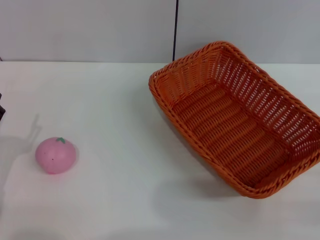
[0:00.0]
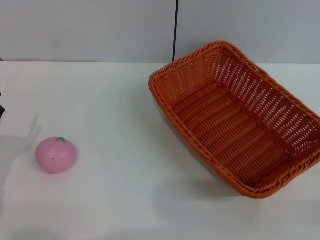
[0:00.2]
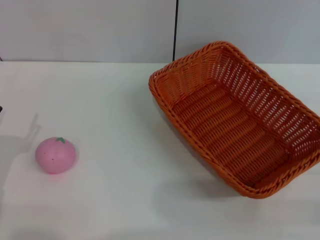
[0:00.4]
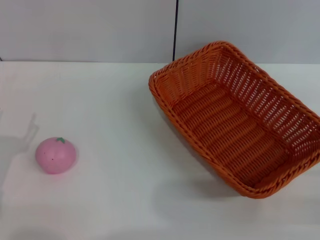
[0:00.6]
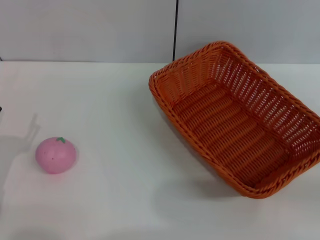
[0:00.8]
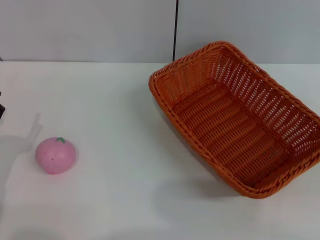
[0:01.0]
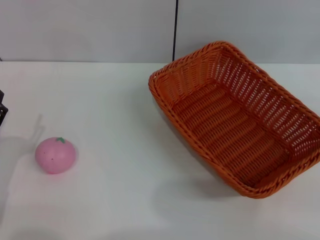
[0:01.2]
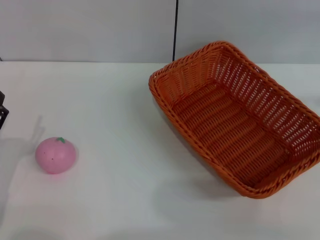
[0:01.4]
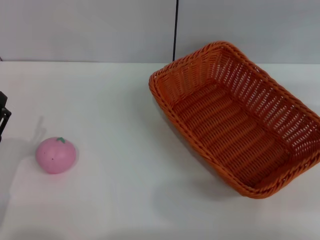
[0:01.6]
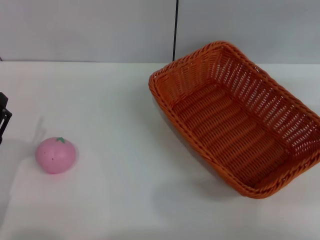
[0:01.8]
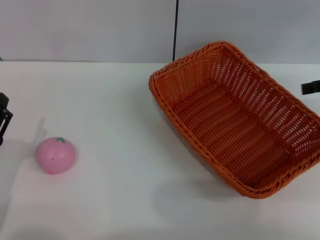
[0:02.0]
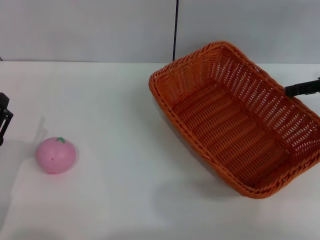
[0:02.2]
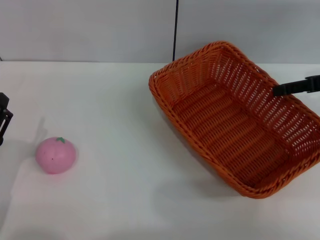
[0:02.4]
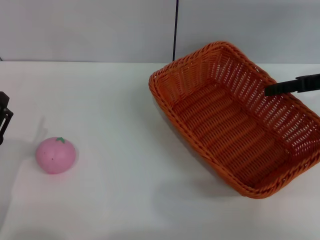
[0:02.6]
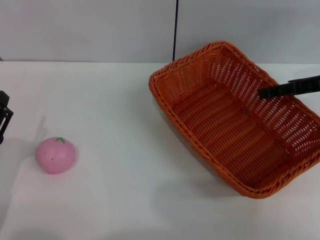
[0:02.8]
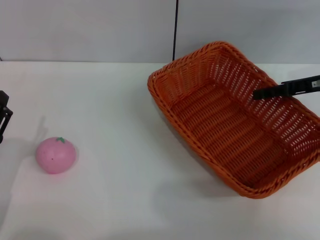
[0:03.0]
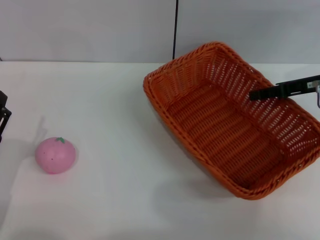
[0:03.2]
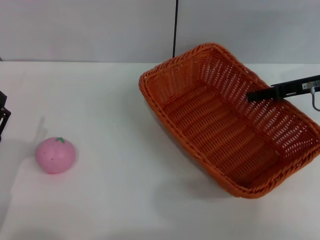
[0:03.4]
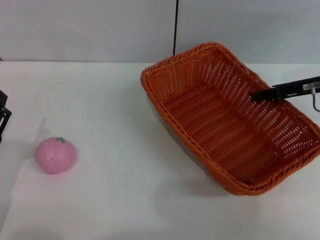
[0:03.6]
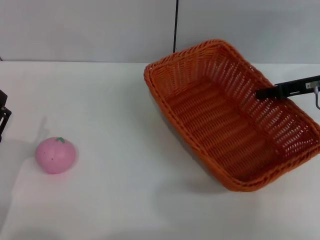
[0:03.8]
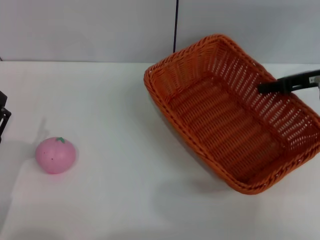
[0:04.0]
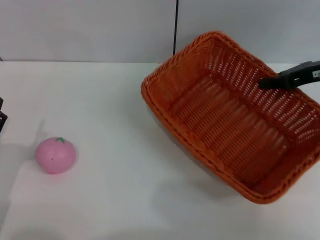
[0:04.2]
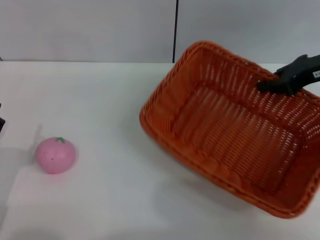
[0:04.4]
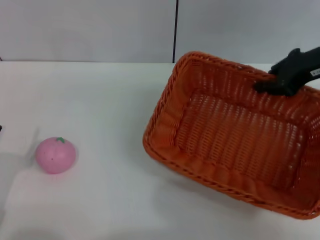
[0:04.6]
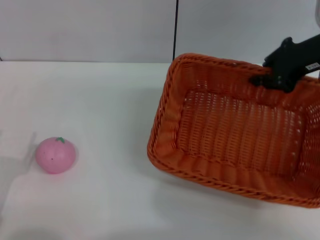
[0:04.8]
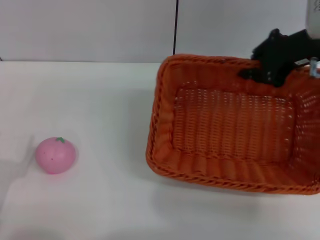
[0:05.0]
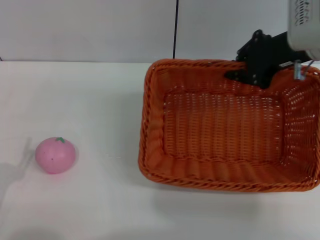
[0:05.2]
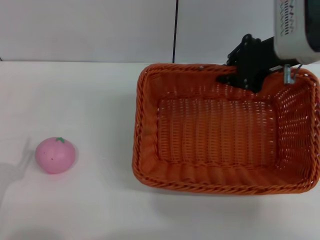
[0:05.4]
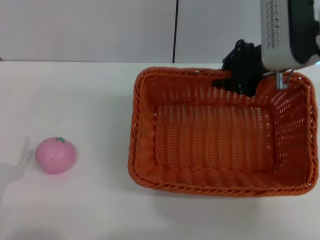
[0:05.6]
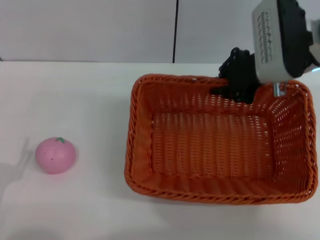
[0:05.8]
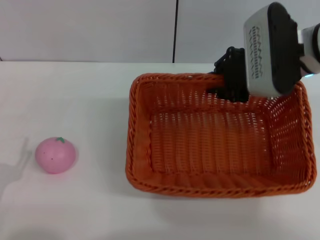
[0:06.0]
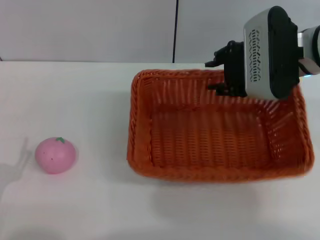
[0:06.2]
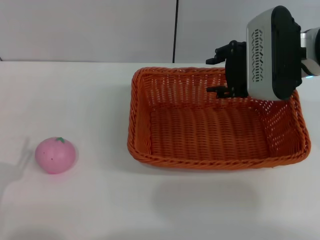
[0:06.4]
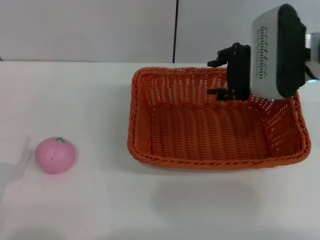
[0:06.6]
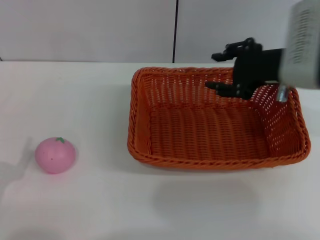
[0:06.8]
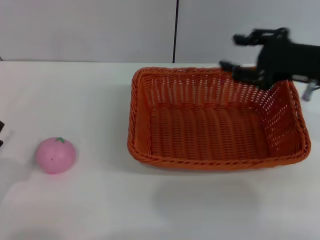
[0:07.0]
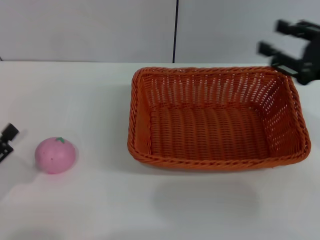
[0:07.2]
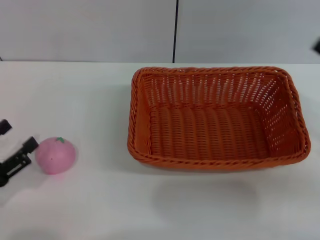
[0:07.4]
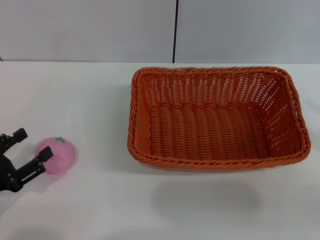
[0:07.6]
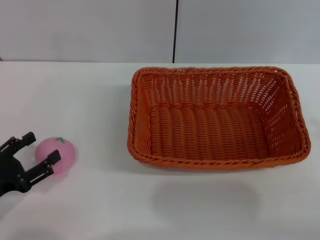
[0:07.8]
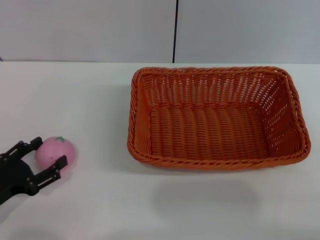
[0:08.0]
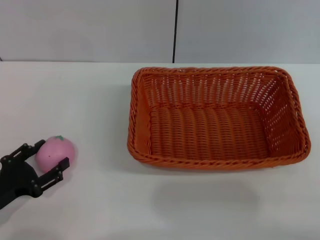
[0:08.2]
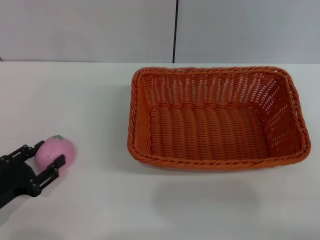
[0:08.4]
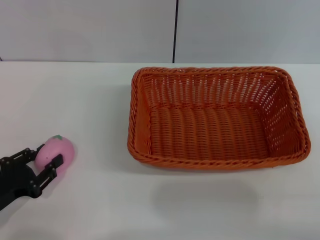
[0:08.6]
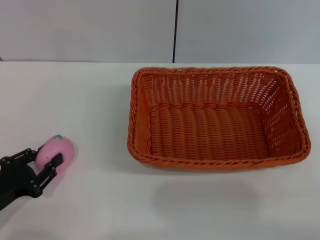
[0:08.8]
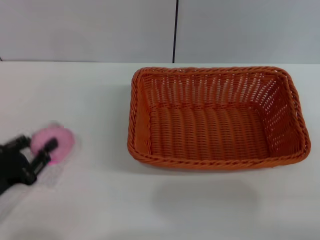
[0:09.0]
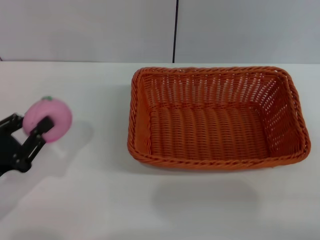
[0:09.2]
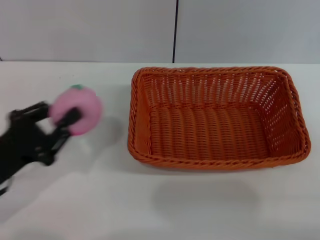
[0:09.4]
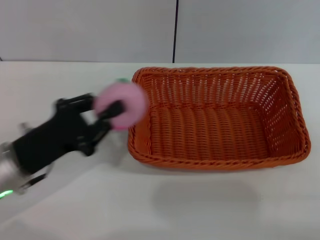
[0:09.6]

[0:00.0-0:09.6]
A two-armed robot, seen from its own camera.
Step, 0:00.0 to 0:04.4: Pick up the light basket with the right gripper.
Step, 0:04.6 to 0:06.8: Place the light basket in the center of view with the right gripper.
Step, 0:07.0 to 0:09.4: Pick up the peach with the left gripper.
0:01.6 to 0:03.2: The right gripper shifts some 15 cm to the left, downward and forward.
0:03.2 to 0:04.8: The right gripper heads upward, covering some 10 cm, and closes.
0:04.8 to 0:06.4: The right gripper moves to the left, about 5 cm, and opens.
0:06.4 to 0:08.0: The right gripper shifts approximately 30 cm to the right and backward. The left gripper heads forward, covering some 5 cm.
0:08.0 to 0:09.6: The left gripper is displaced to the right and forward by roughly 10 cm, and closes its fingers.

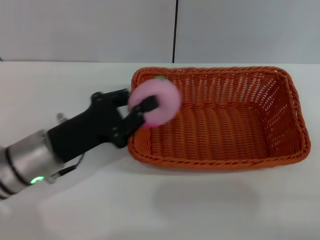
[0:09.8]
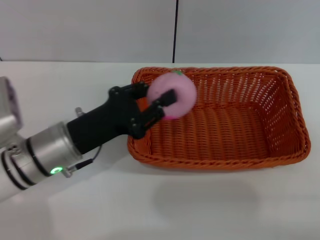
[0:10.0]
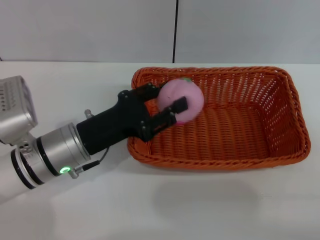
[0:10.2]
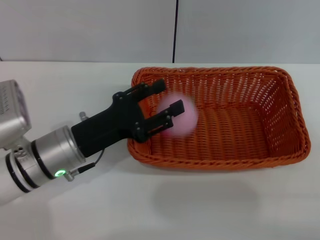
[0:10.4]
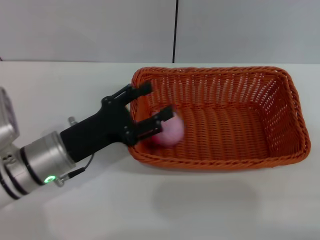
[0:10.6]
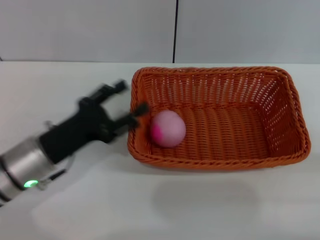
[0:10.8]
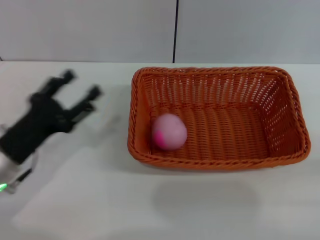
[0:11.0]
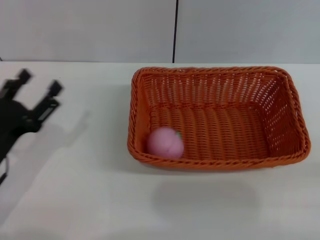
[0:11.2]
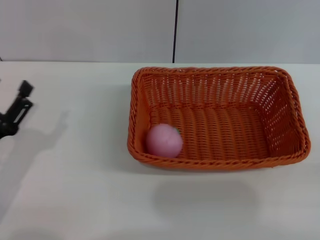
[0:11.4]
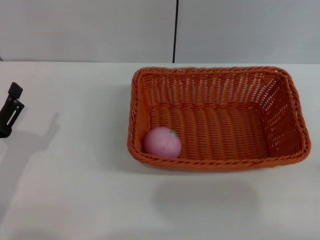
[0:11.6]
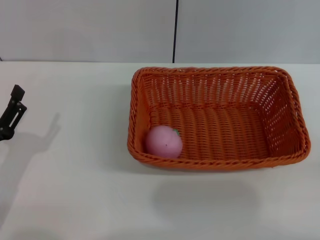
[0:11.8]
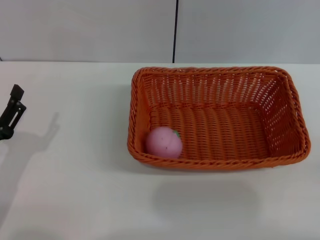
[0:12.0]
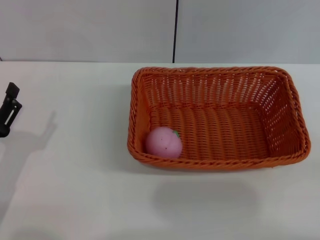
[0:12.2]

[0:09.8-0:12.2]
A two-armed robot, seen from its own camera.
Step, 0:09.8 to 0:10.8: Place the peach into the basket with the left gripper.
0:09.8 to 0:11.0: The left gripper shifts by approximately 5 cm, and opens.
0:11.0 to 0:12.2: The left gripper moves some 5 cm.

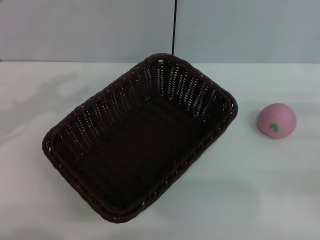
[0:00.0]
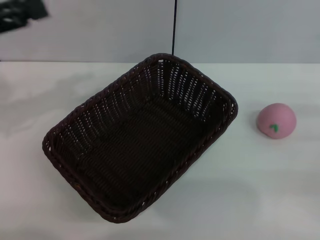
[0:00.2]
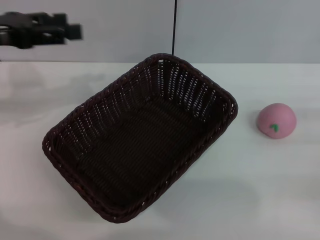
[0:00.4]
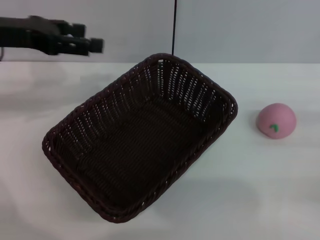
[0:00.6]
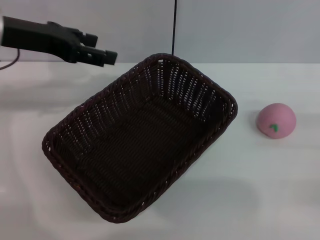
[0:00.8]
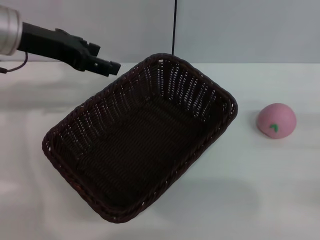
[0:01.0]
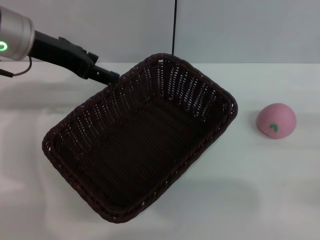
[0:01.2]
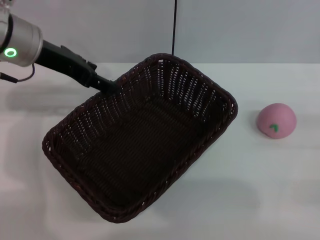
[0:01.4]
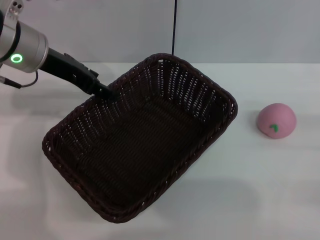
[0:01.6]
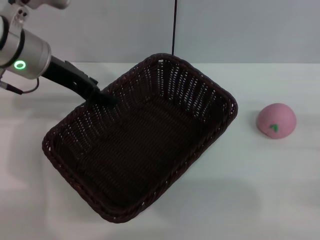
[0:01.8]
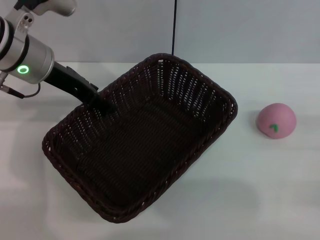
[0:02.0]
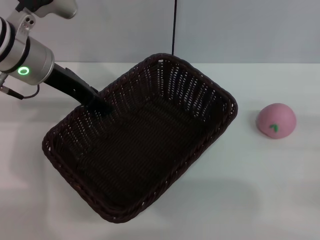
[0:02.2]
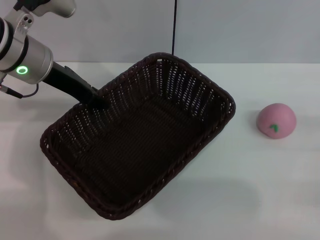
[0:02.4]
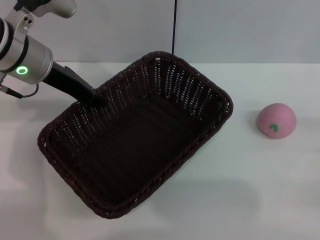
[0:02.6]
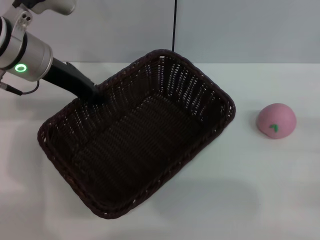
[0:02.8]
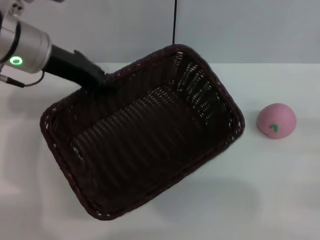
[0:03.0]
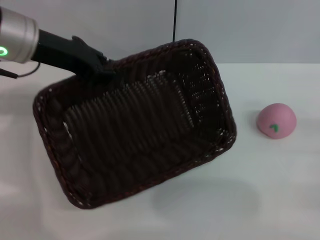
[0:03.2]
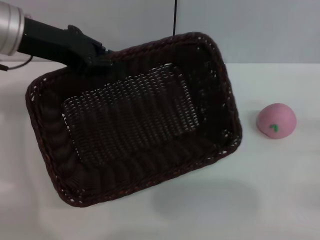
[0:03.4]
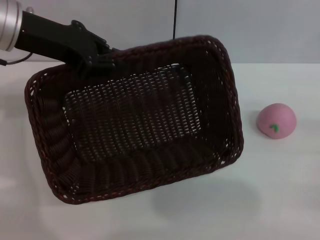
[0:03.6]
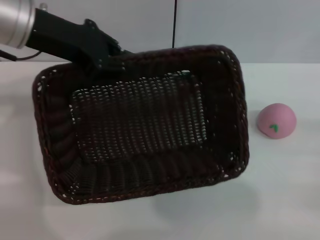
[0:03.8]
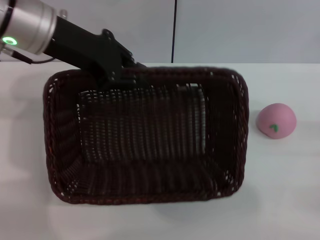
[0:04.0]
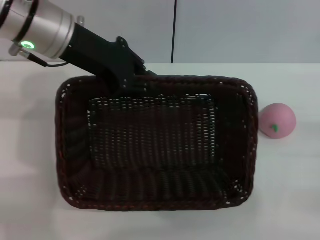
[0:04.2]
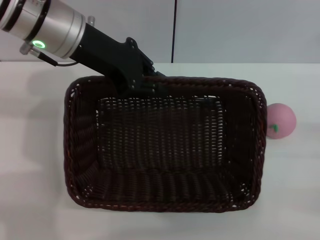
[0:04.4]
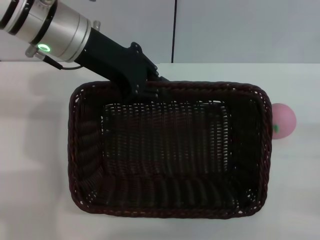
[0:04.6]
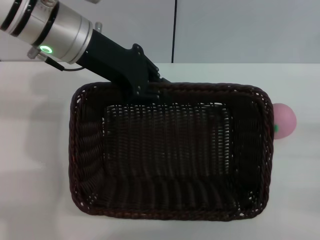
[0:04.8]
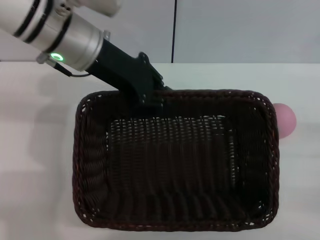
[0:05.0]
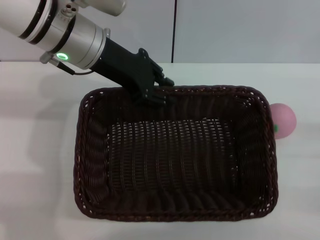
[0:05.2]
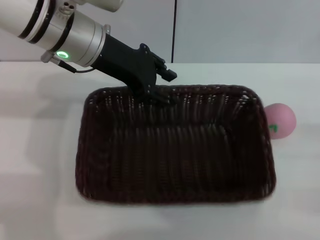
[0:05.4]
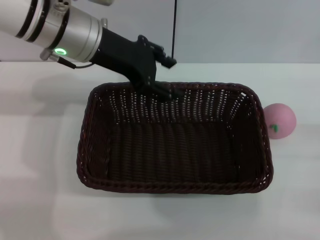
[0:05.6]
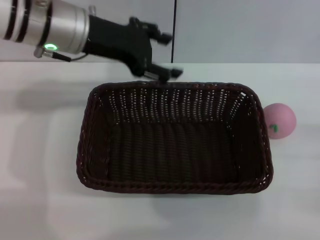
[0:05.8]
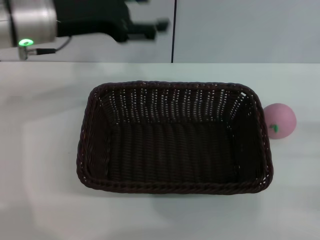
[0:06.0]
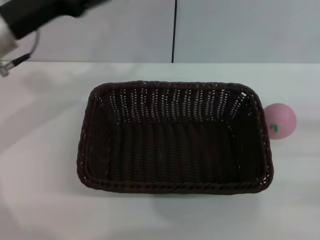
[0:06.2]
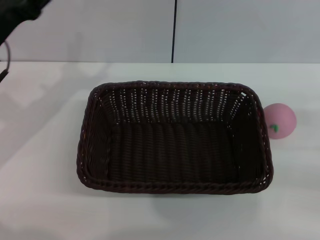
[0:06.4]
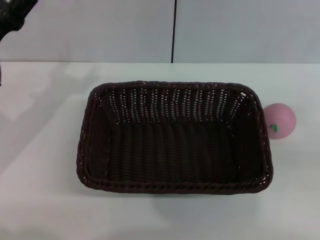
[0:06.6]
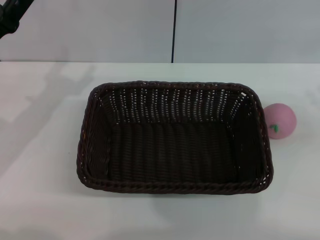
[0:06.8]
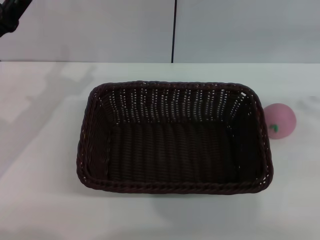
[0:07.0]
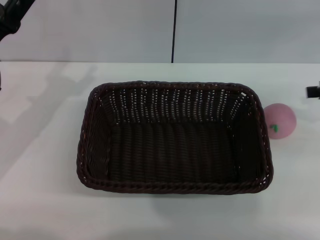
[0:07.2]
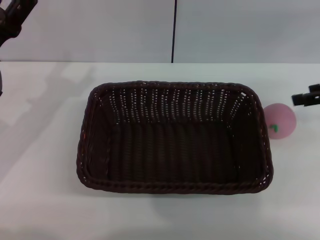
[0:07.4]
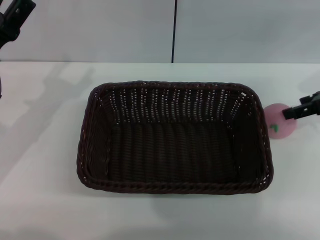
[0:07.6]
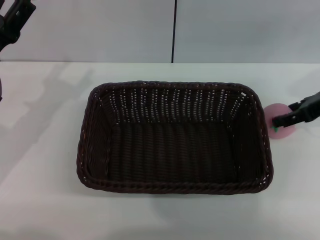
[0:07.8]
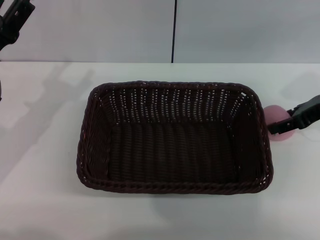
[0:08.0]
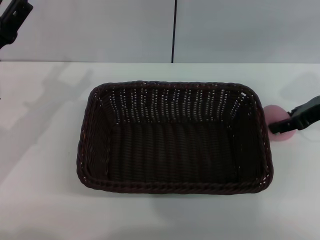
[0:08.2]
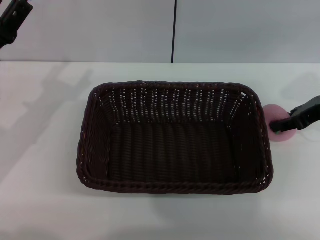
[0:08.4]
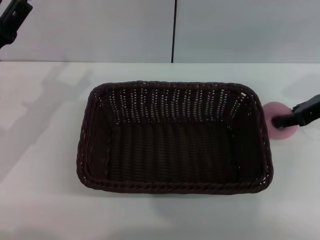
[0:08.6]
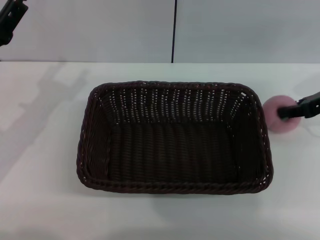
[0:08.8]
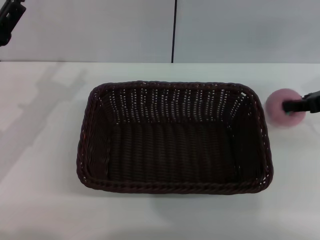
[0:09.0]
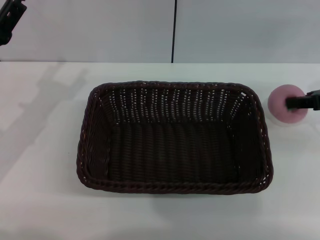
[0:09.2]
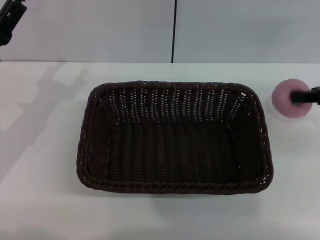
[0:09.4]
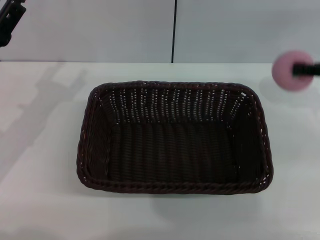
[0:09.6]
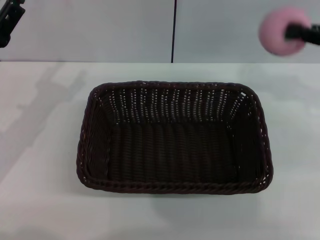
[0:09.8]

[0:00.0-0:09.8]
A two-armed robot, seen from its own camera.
Step, 0:00.0 to 0:03.4: Pick up the dark basket with the left gripper.
Step, 0:06.0 to 0:09.8: Pick up the peach with the left gripper.
0:00.0 to 0:01.4: The left gripper goes approximately 15 cm to the right and forward.
0:01.4 to 0:02.8: The left gripper closes up.
0:02.8 to 0:04.2: The left gripper ends up about 5 cm from where it was.
0:04.2 to 0:05.6: The left gripper opens.
0:05.6 to 0:07.0: The left gripper travels to the left, downward and backward by approximately 20 cm, and opens; the right gripper is displaced upward and forward by approximately 15 cm.
0:07.0 to 0:08.4: The right gripper travels to the left and forward by some 10 cm, and opens, then closes once more.
0:08.4 to 0:09.8: The right gripper is displaced upward by about 5 cm, and closes up.
